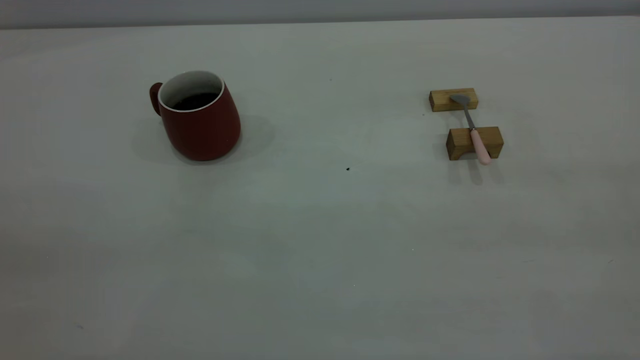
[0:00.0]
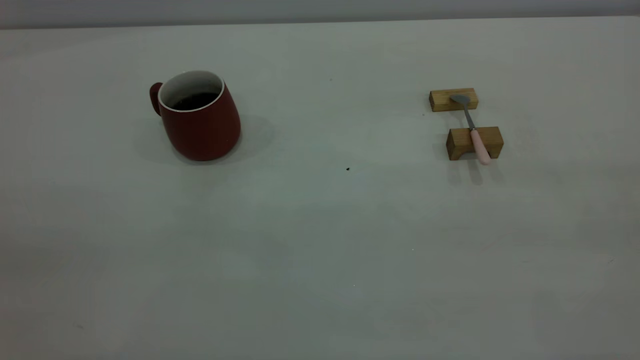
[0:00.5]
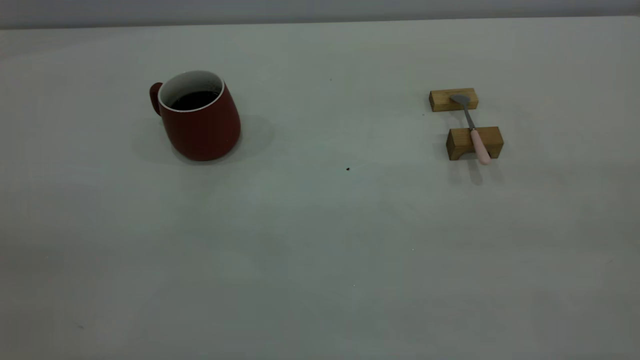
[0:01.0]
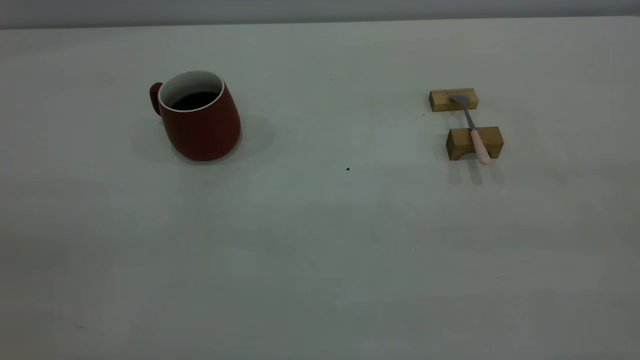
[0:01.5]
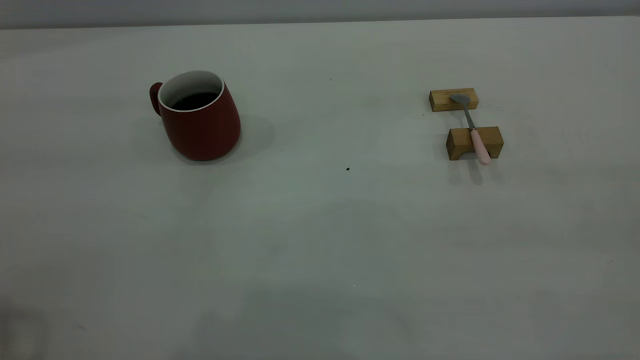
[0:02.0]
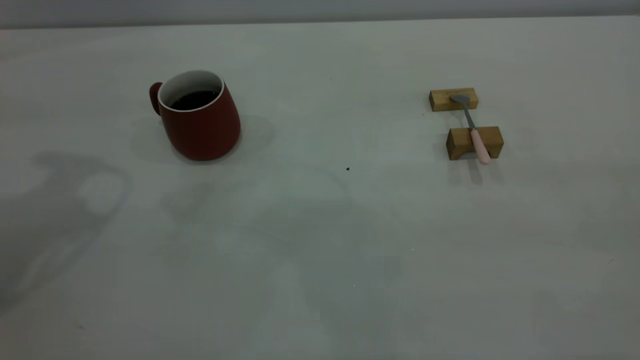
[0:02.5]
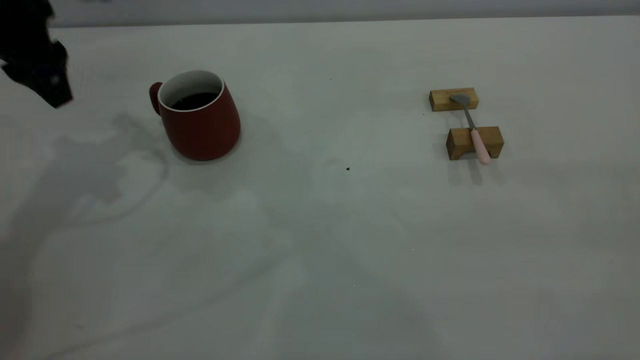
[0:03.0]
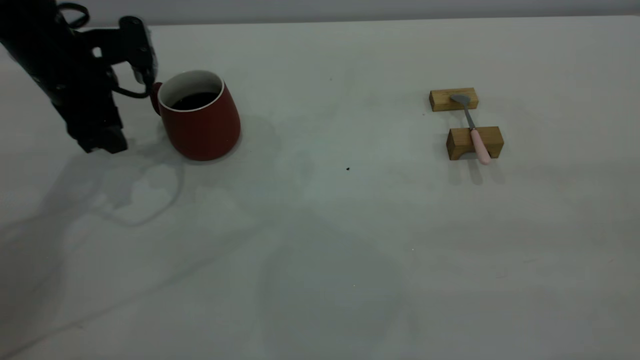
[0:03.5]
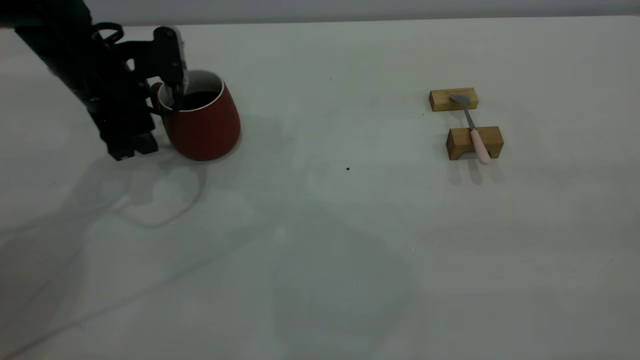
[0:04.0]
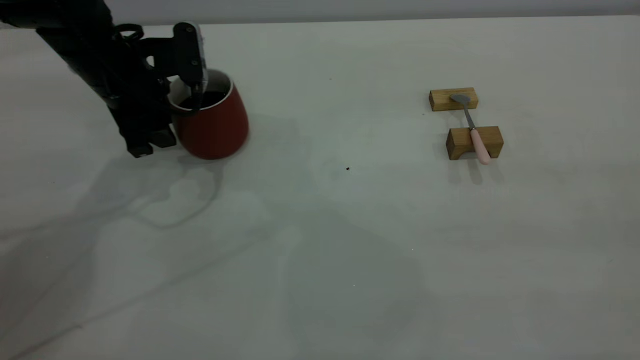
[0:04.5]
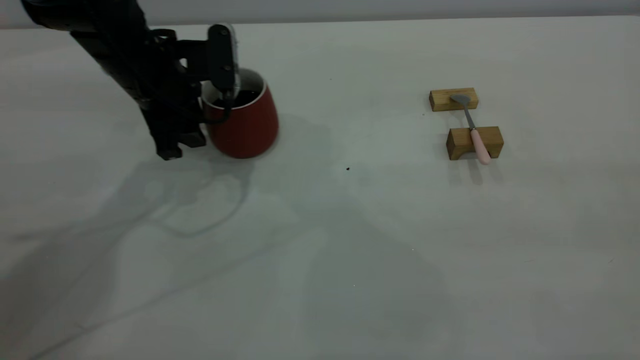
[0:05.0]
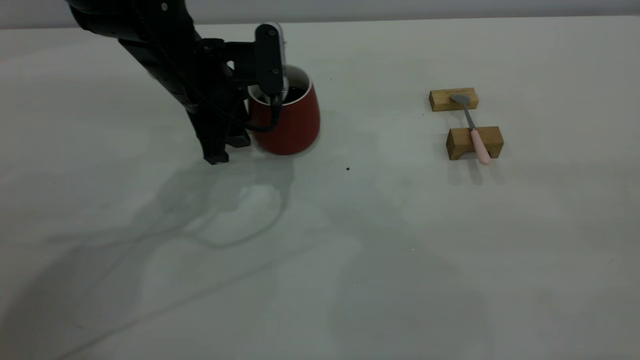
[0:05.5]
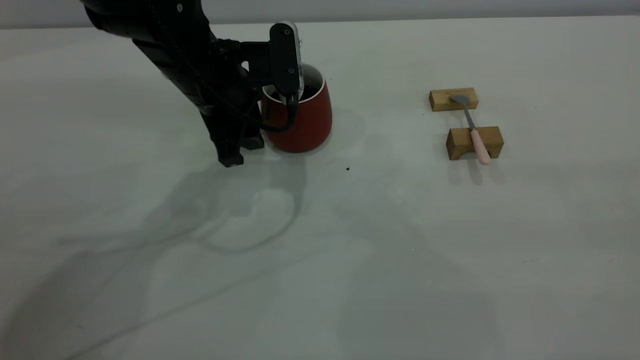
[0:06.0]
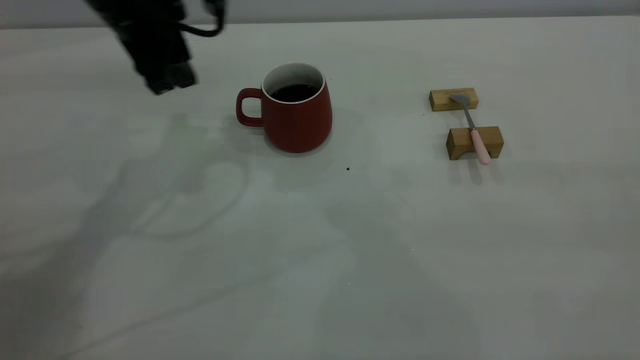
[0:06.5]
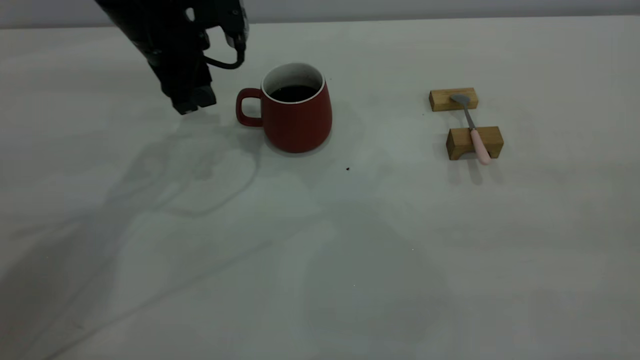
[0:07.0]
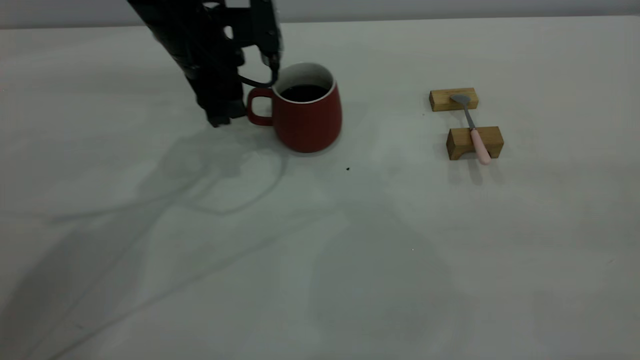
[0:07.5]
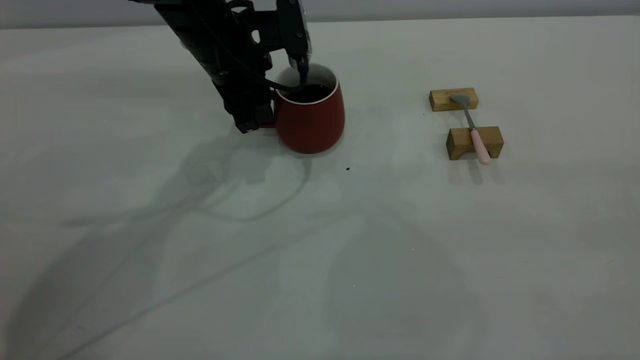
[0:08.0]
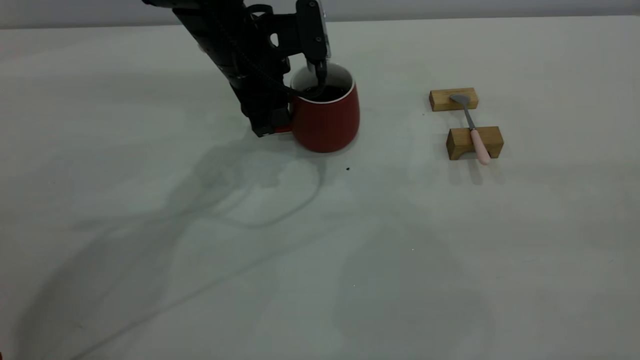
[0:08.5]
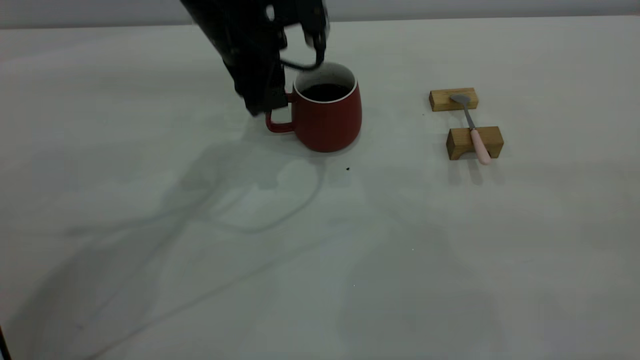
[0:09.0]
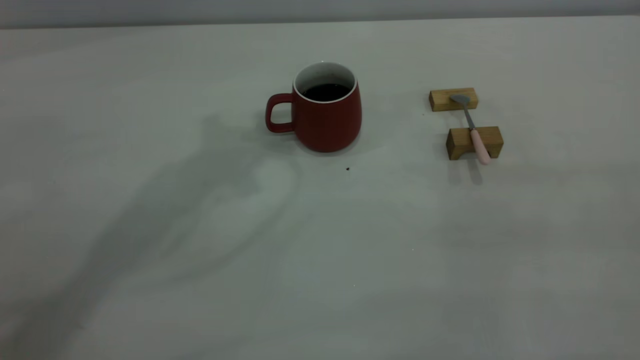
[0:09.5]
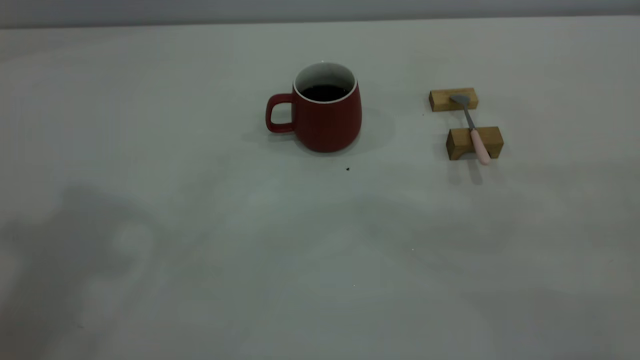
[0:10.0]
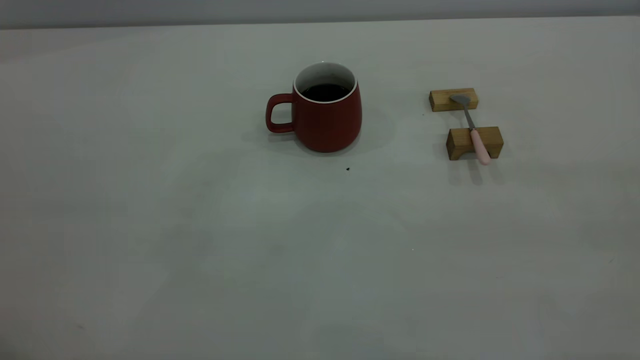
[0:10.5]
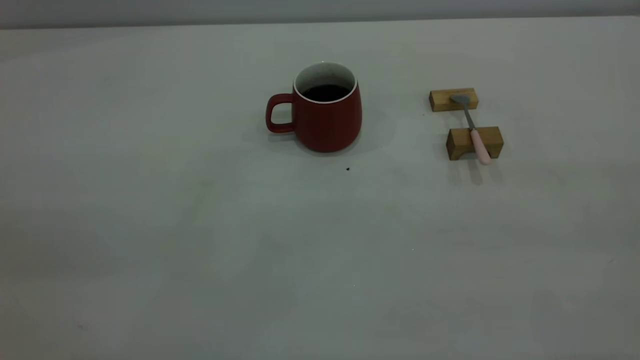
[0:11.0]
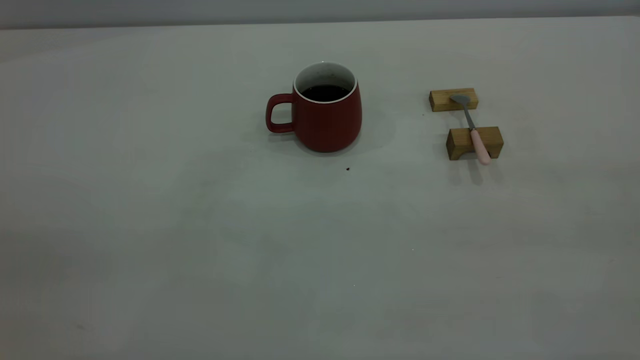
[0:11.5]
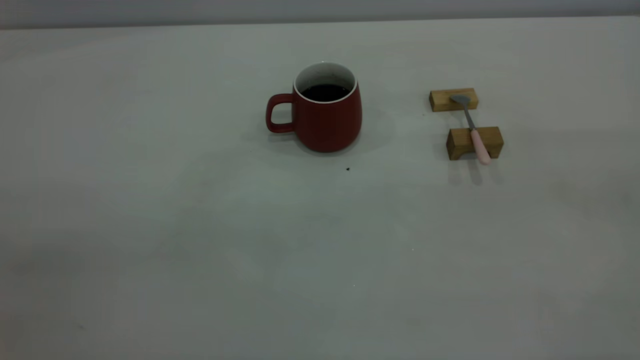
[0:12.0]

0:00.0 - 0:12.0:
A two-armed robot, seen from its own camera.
Step, 0:00.0 - 0:09.0: Move the cup with coffee to the center of view.
0:02.0 - 0:04.0: The left gripper heads downward and forward, covering roughly 35 cm.
0:04.0 - 0:06.0: The left gripper moves to the right, about 10 cm.
0:06.0 - 0:08.0: The left gripper shifts about 5 cm forward, and goes to the left and returns, roughly 5 cm each way.
0:08.0 - 0:10.0: The left gripper shifts roughly 40 cm upward and backward.

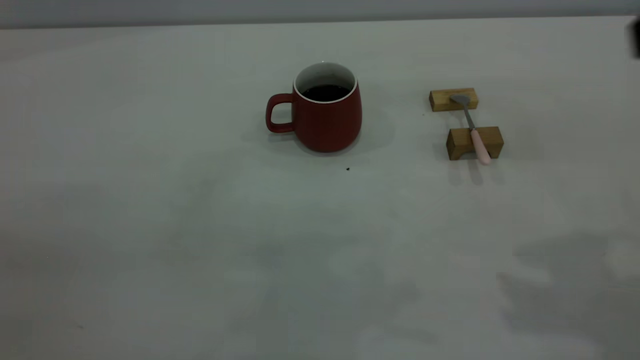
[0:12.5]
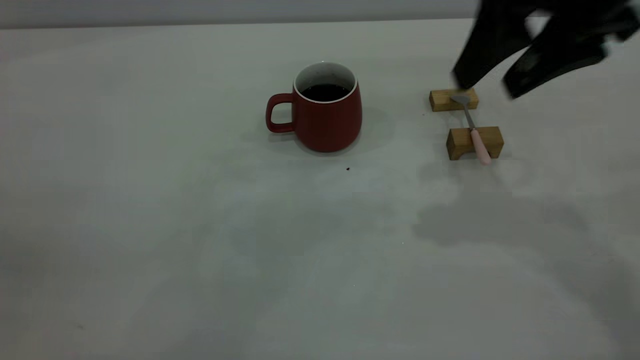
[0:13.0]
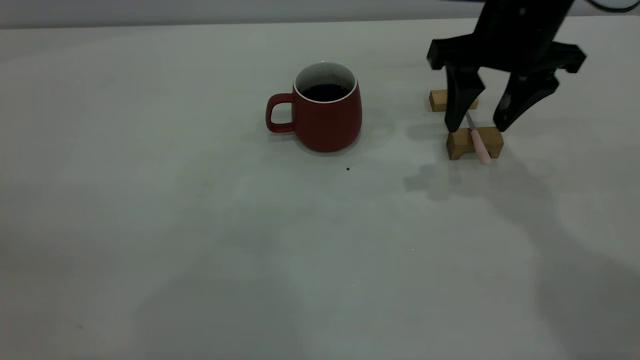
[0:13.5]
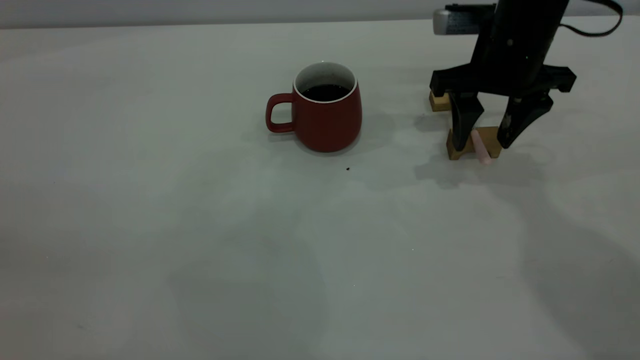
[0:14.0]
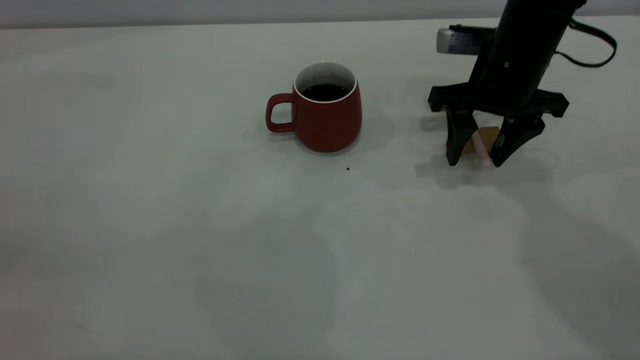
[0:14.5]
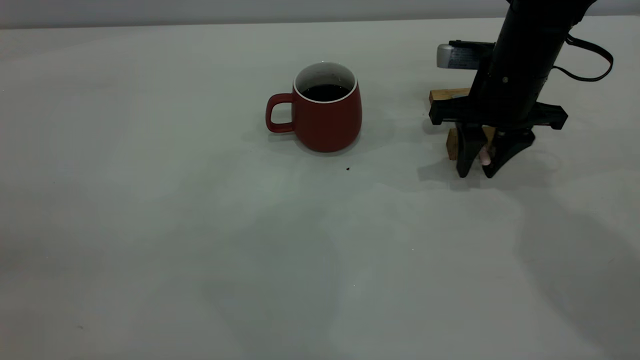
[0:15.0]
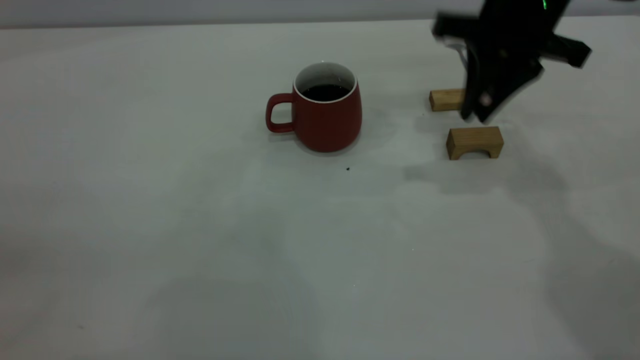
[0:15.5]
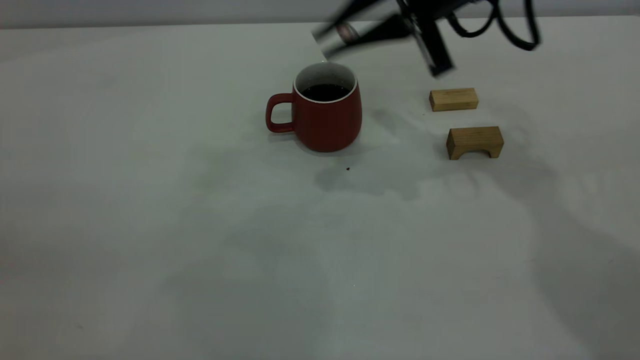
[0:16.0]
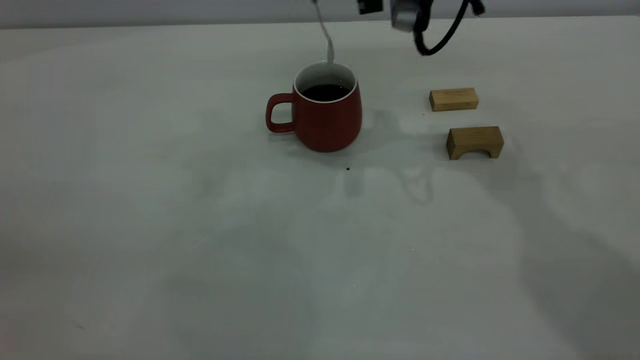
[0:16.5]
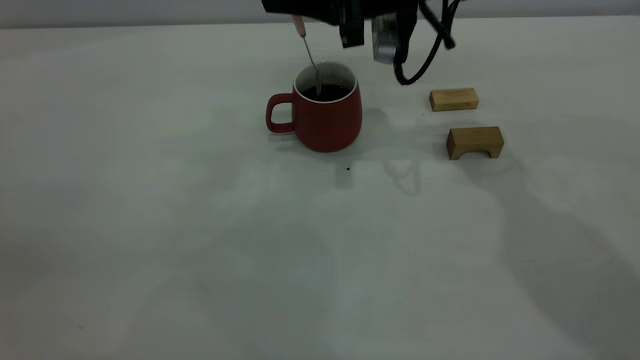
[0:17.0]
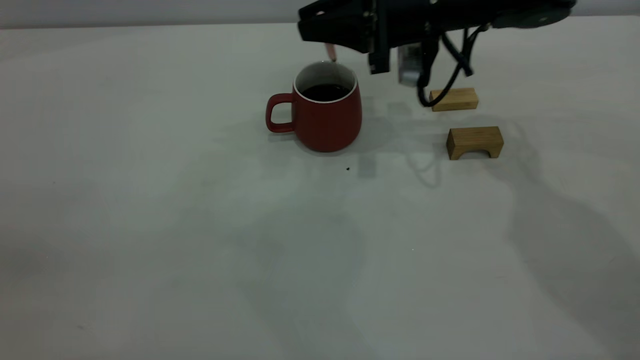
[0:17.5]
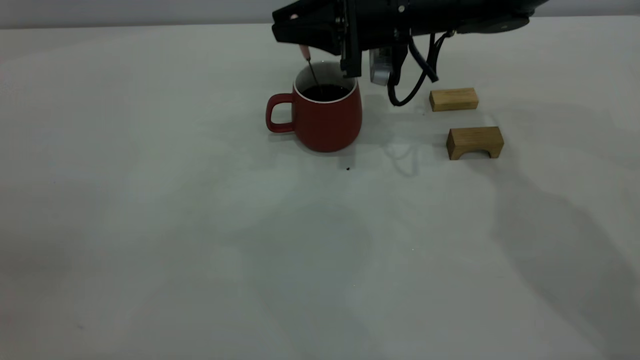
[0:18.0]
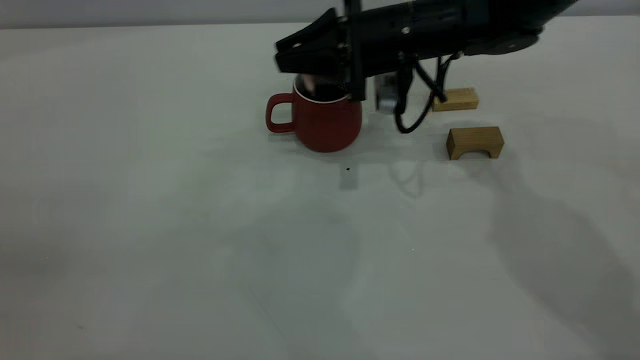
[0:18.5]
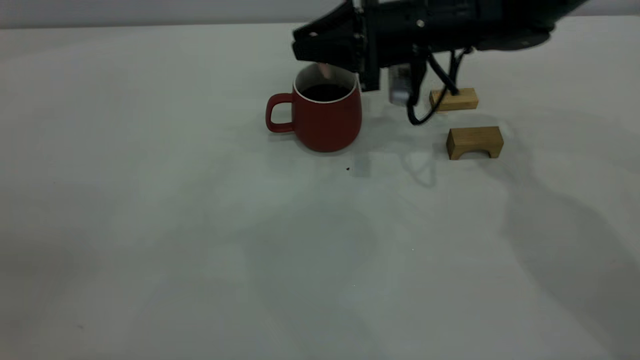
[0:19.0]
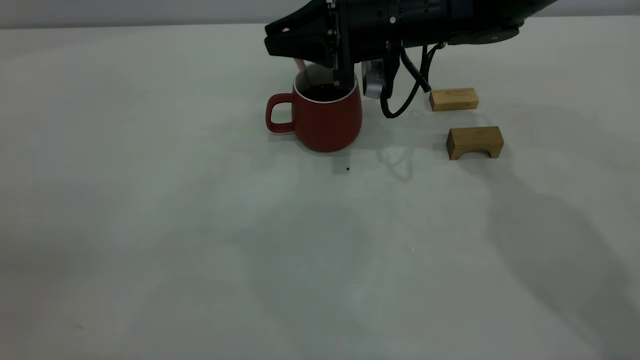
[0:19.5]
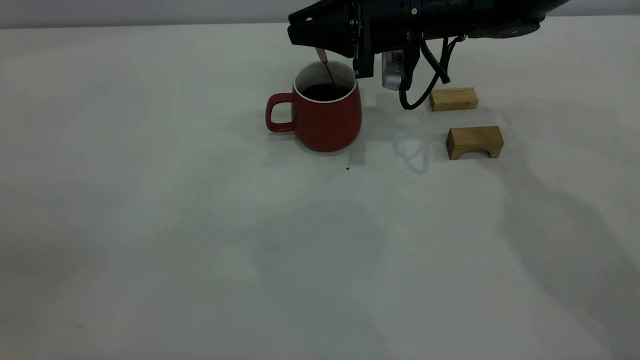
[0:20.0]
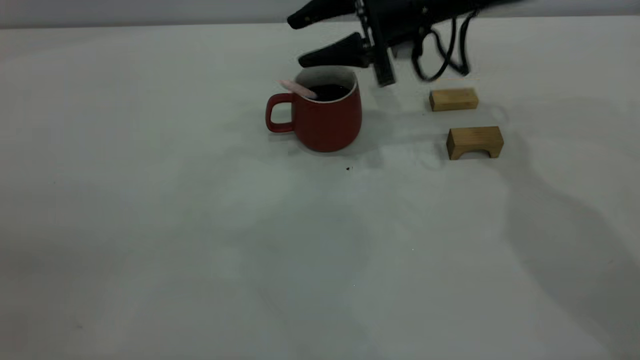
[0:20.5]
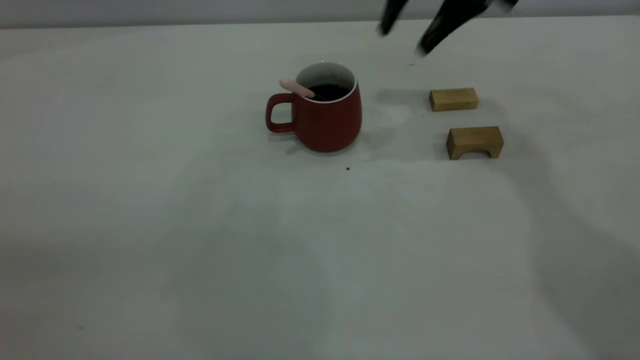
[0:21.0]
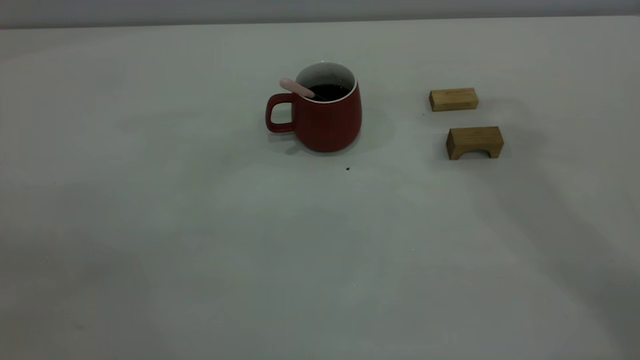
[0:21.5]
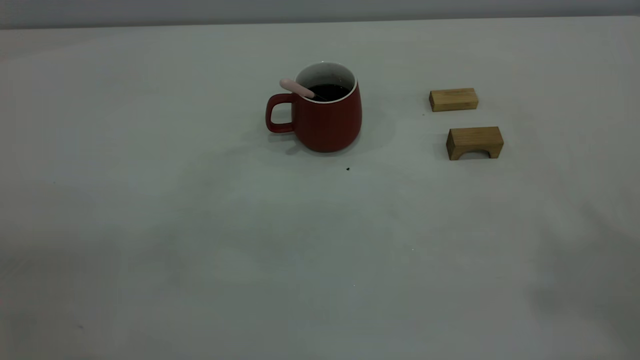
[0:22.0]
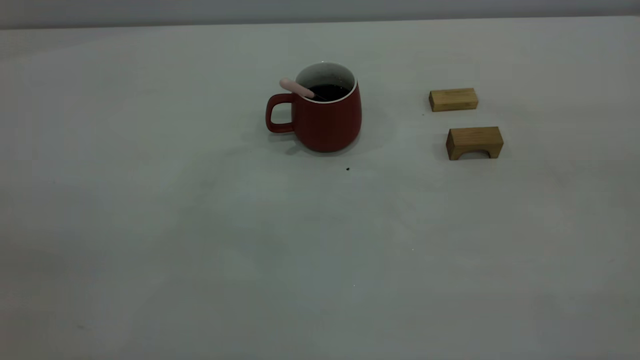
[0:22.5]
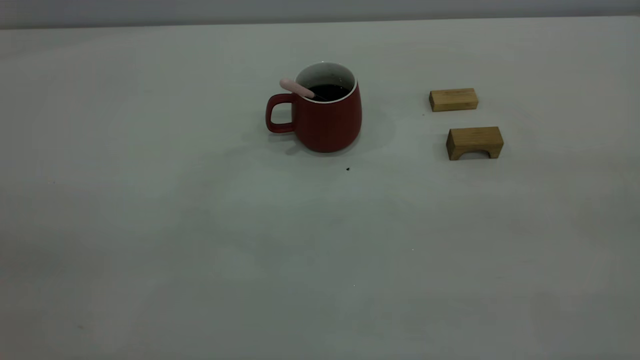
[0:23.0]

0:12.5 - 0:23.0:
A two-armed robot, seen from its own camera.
Step, 0:12.5 - 0:15.0: Pick up the spoon.
Step, 0:15.5 - 0:20.5: Stir the coffee in the cup.
0:12.5 - 0:14.5: The right gripper moves downward and forward, some 30 cm.
0:14.5 - 0:16.5: The right gripper is displaced upward and to the left by about 15 cm, and closes its fingers.
0:16.5 - 0:19.0: The right gripper travels downward by roughly 10 cm.
0:19.0 - 0:21.0: The right gripper heads upward, covering roughly 15 cm, and opens its fingers.
0:21.0 - 0:23.0: The right gripper travels backward by some 40 cm.
